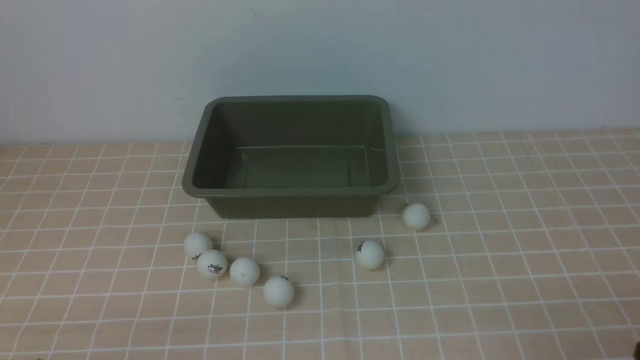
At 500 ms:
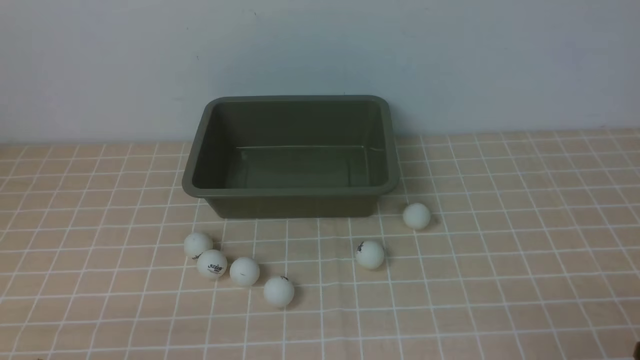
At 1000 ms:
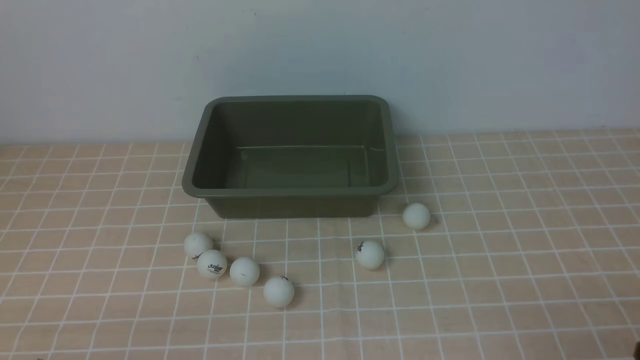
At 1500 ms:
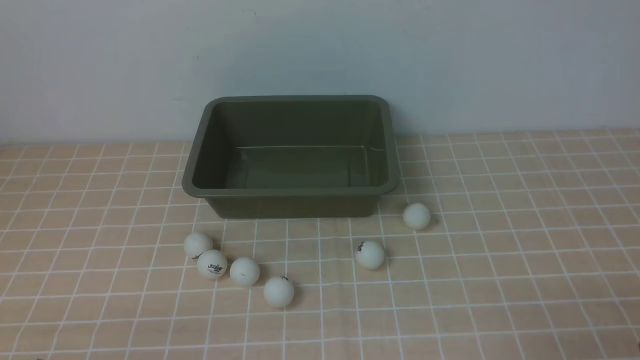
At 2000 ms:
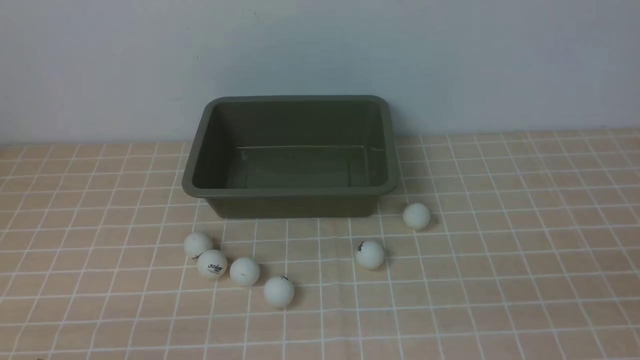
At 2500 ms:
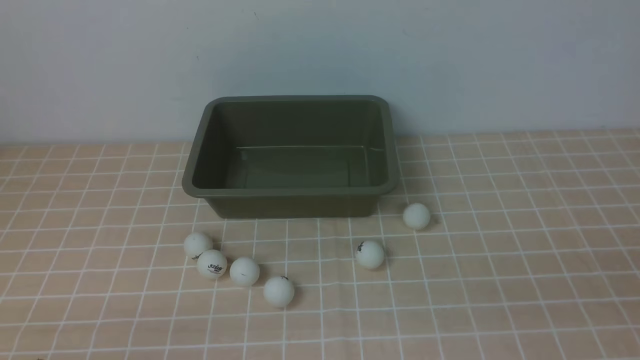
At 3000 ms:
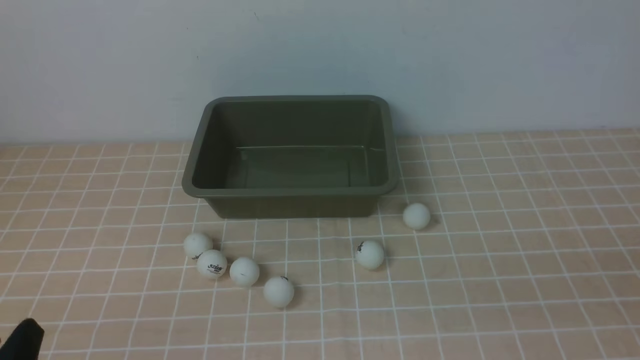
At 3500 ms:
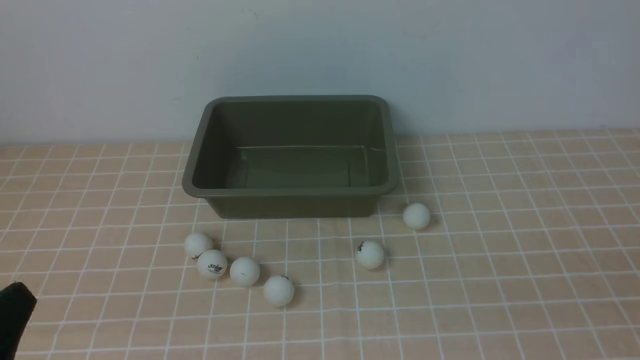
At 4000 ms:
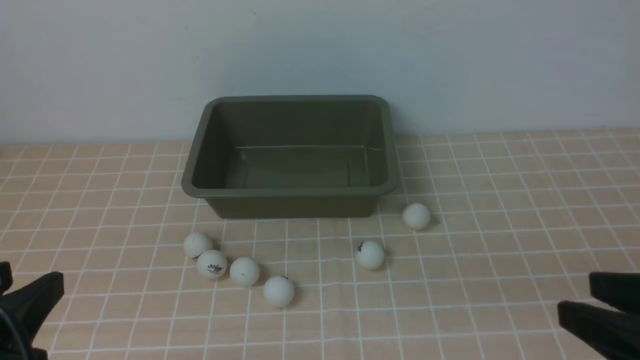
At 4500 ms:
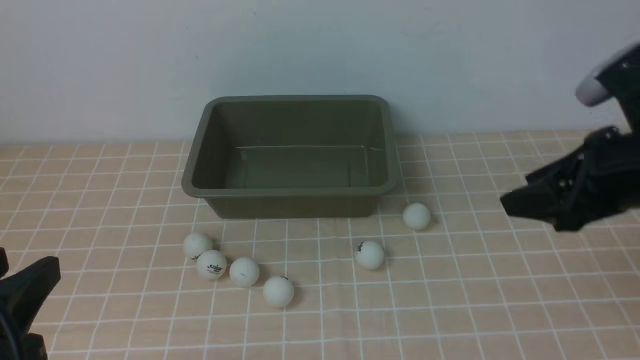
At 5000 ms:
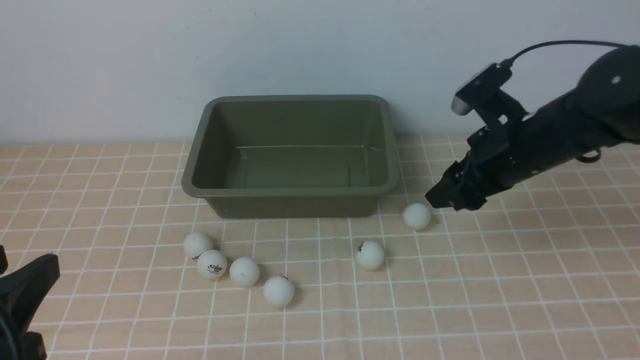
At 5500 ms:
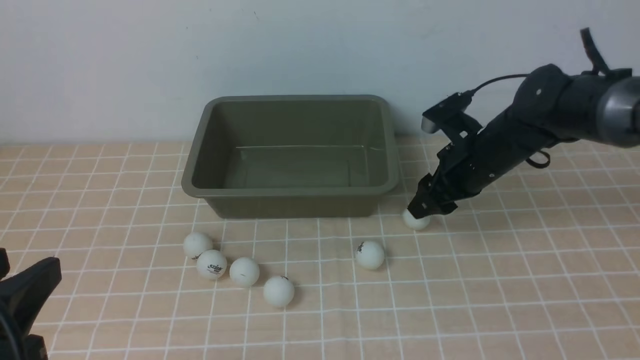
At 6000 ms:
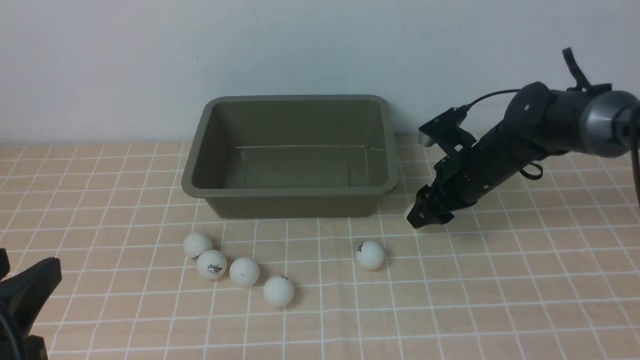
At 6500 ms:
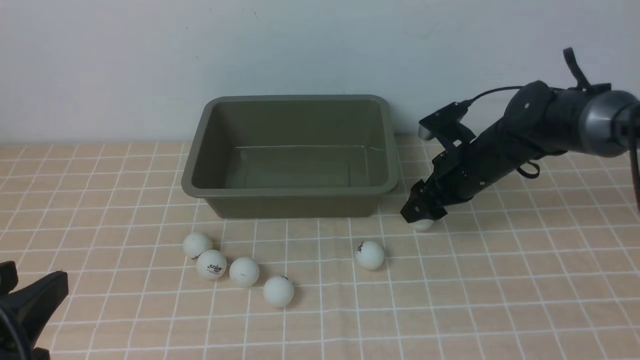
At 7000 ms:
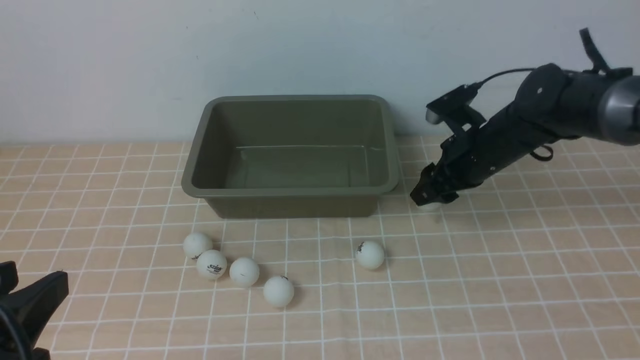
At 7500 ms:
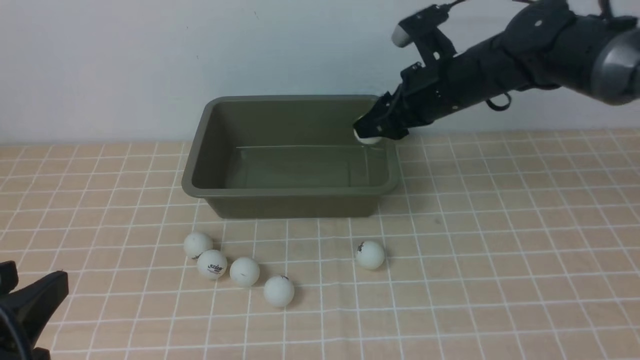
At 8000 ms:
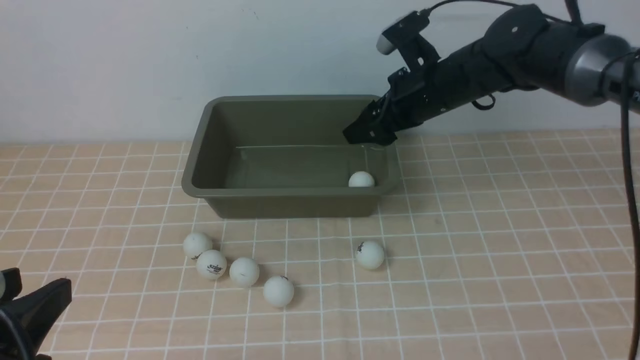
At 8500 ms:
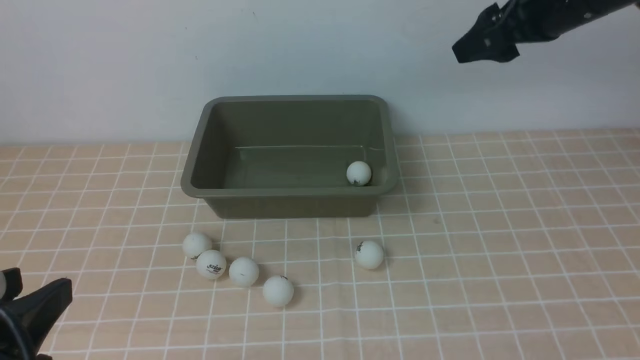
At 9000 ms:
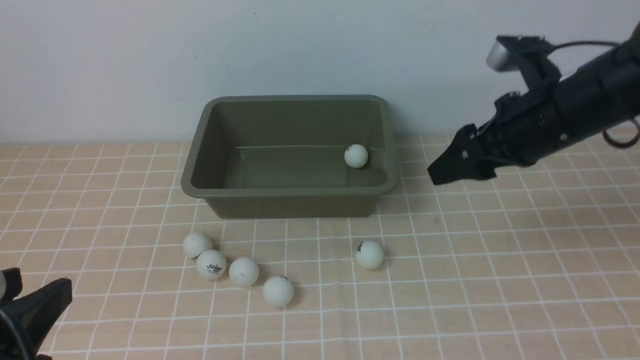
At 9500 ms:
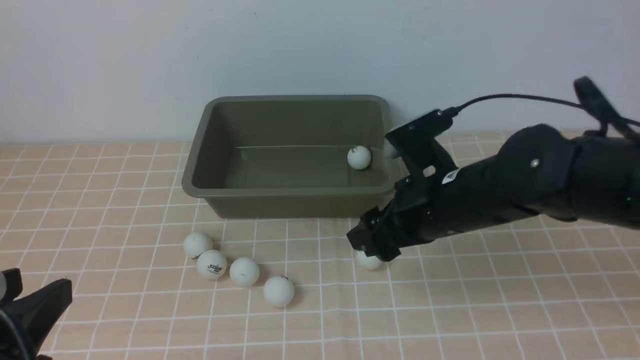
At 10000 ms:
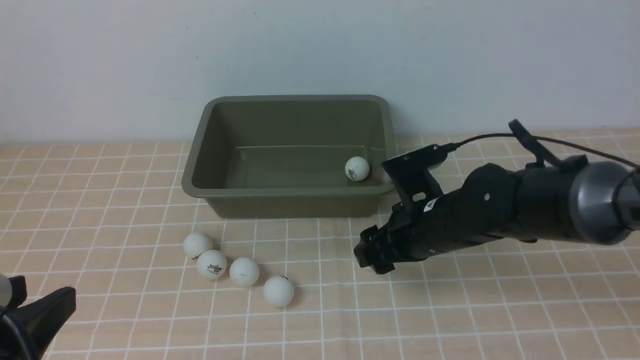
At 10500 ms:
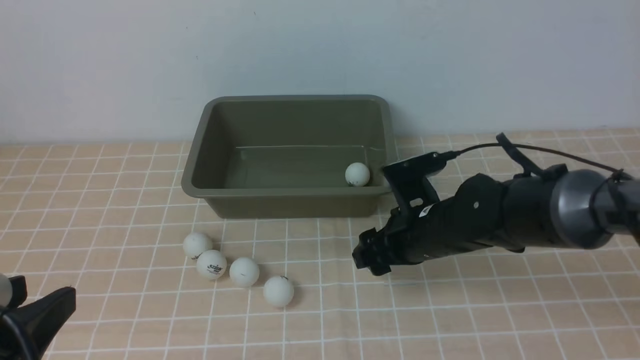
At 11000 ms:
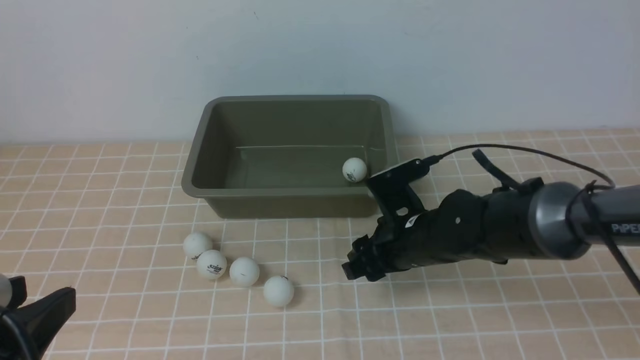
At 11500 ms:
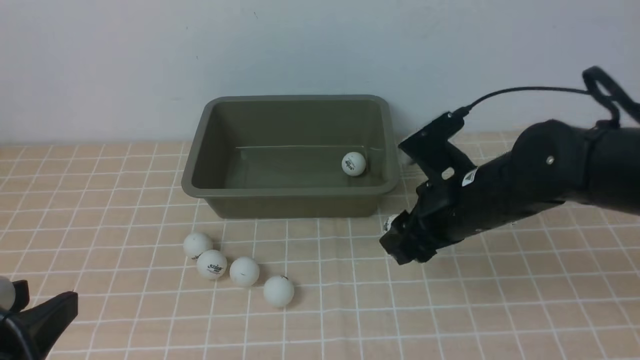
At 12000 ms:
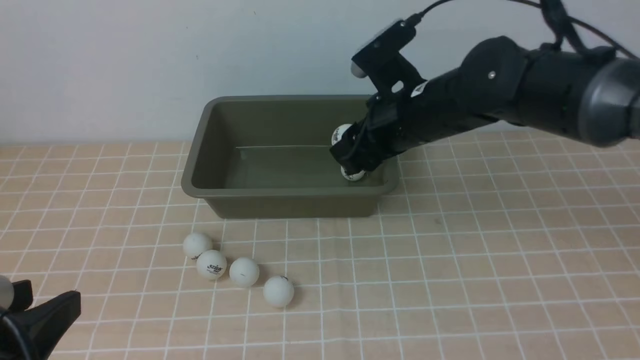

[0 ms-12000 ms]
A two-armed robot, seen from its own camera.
Step, 0 ms to 7000 ms: use the right arm to clamp the table tennis ball closest to it.
Step, 7500 ms to 8000 ms: use the right arm to put the table tennis ball into the box.
Step, 8500 ms to 11000 ms: use the right arm to clamp the table tennis ball closest to it.
2000 ms to 4000 ms: The left gripper goes roughly 10 cm upward; the right gripper goes some 10 cm forward.
4000 ms to 6000 ms: The right gripper moves forward and downward, approximately 35 cm.
6000 ms to 8000 ms: The right gripper shifts roughly 10 cm upward, and opens up.
8000 ms to 10000 ms: The right gripper is displaced backward and downward by about 15 cm.
10000 ms to 12000 ms: The right gripper heads upward and forward, covering roughly 10 cm, and closes up.

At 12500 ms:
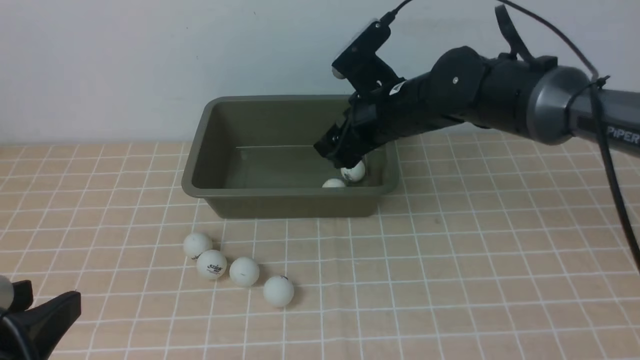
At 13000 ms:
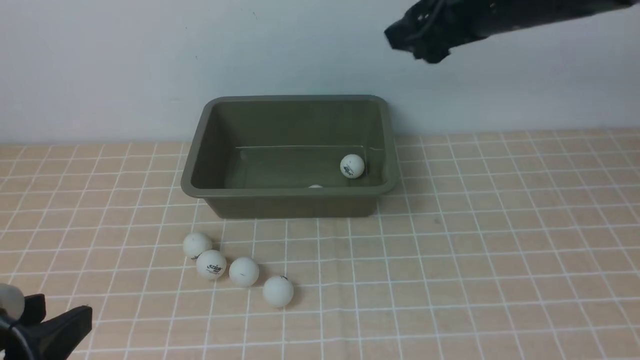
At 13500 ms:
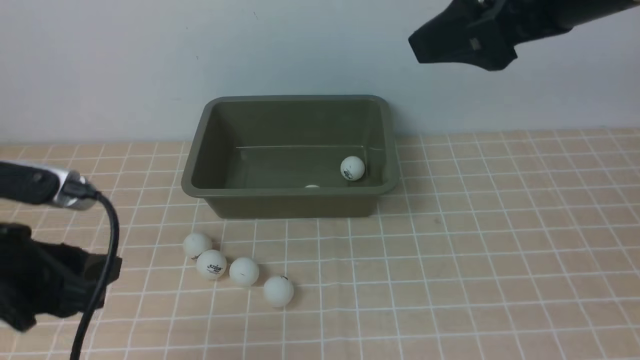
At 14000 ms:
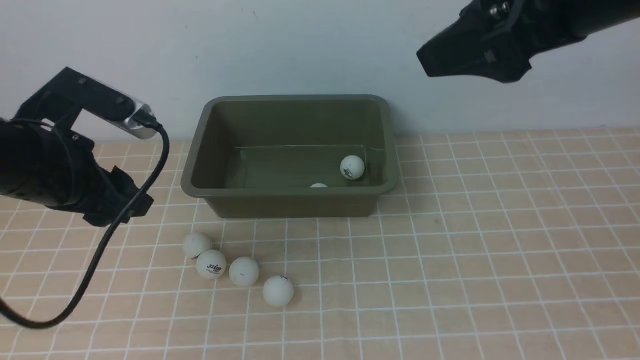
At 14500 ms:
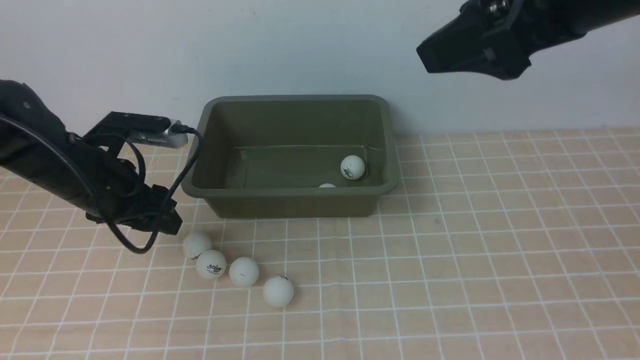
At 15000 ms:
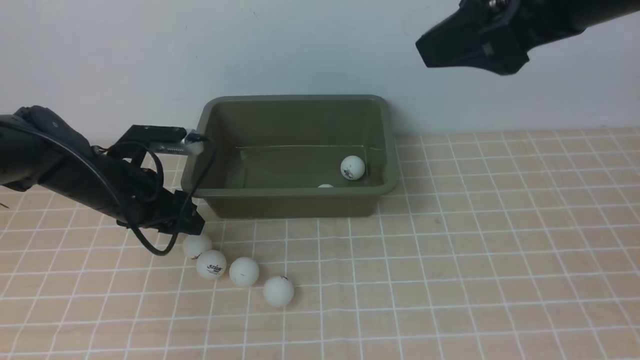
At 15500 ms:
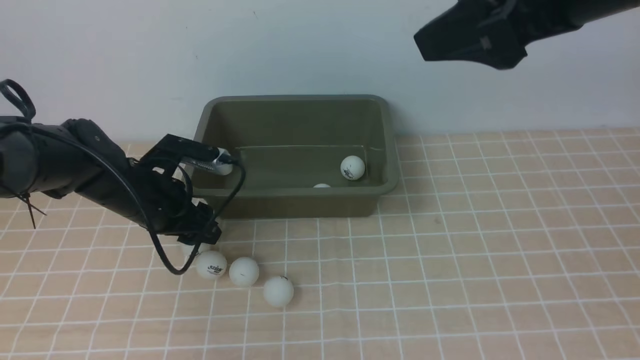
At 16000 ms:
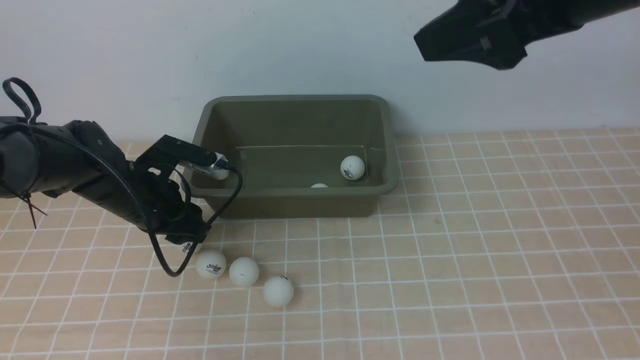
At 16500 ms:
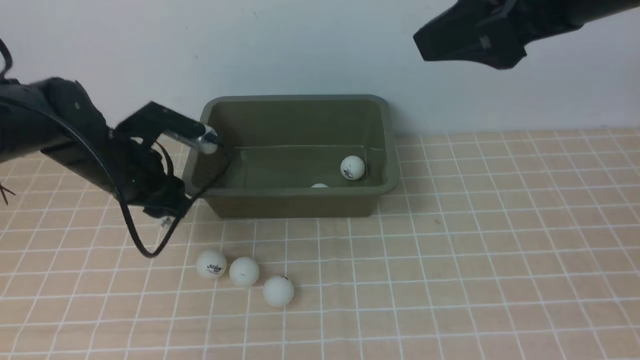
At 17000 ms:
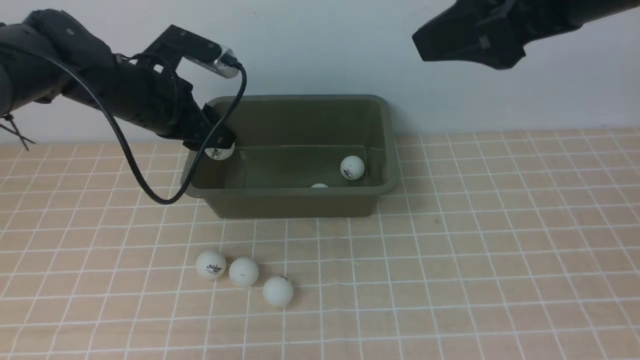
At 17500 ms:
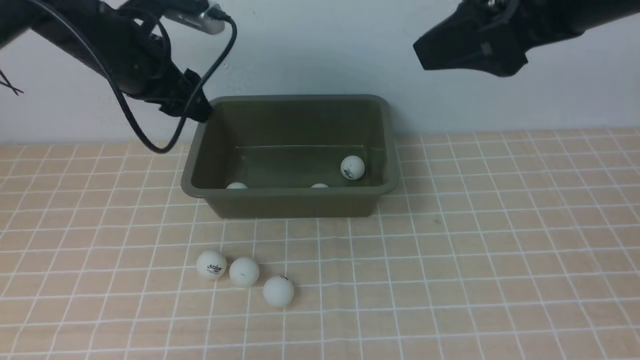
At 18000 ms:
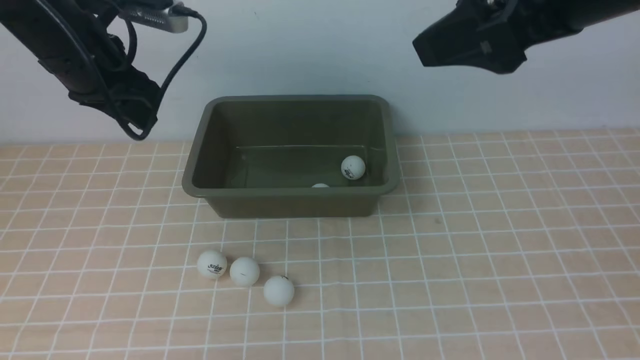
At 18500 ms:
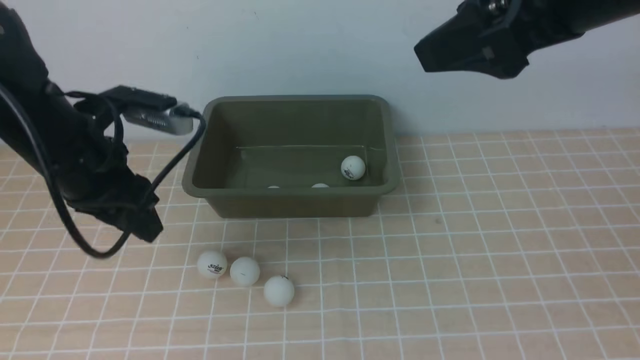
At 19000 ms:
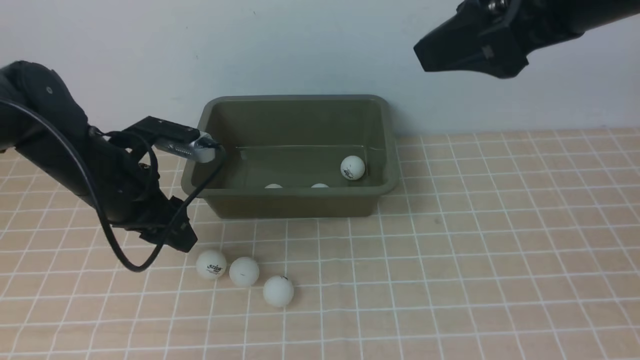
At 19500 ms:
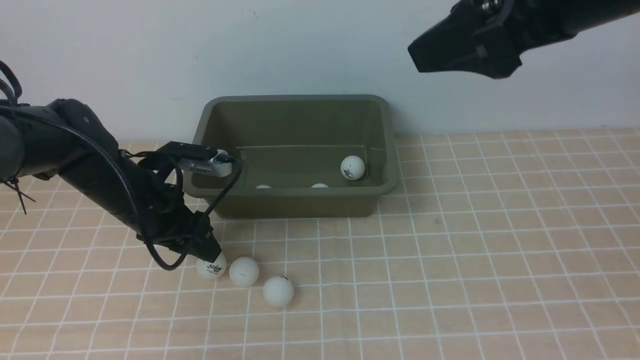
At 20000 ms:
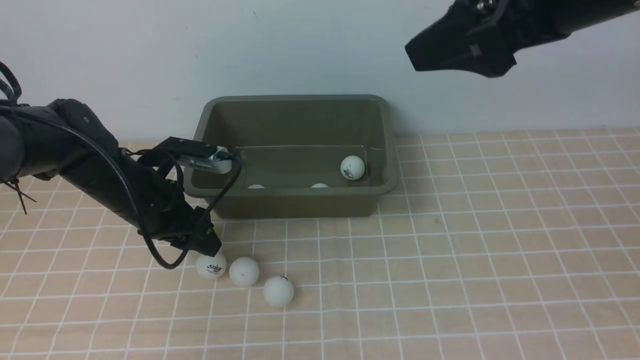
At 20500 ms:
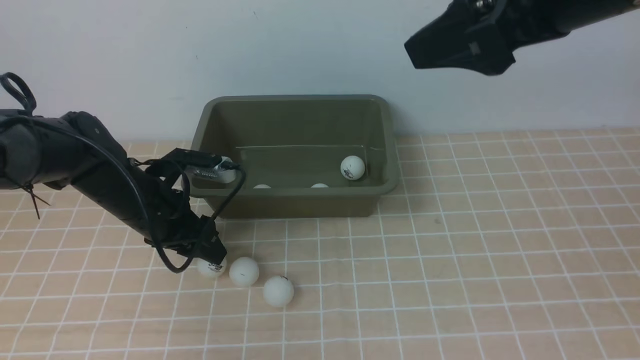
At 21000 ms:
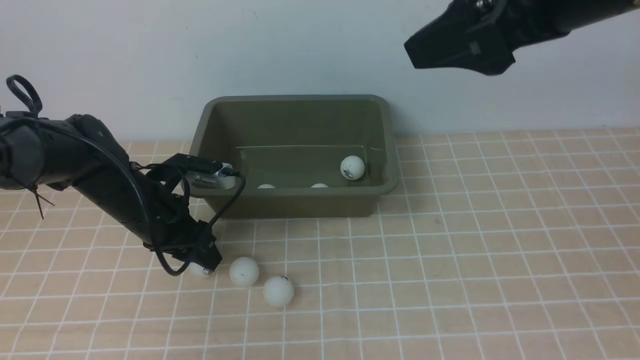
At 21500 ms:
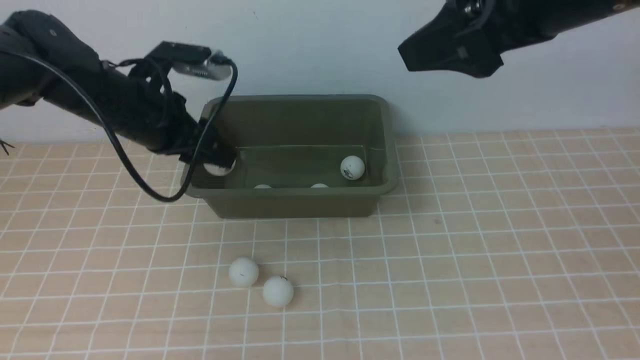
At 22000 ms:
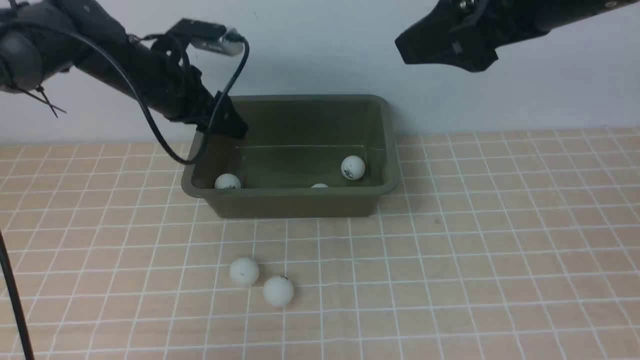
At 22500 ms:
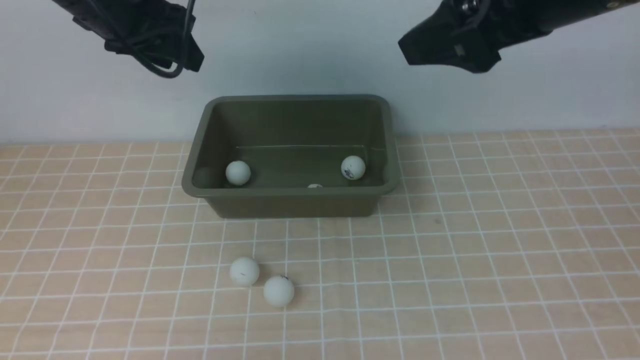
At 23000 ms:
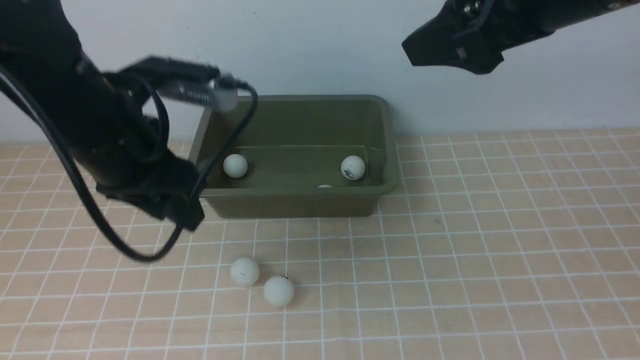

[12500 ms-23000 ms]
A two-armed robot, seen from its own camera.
Step, 13000 ms to 16000 ms: use the left arm to clamp the table tennis ball closest to it.
Step, 16500 ms to 17500 ms: use the left arm to put the table tennis ball into the box.
Step, 18000 ms to 21500 ms: use the left arm to clamp the table tennis ball closest to it.
12500 ms to 14500 ms: The right gripper shifts approximately 25 cm upward, backward and to the right. Meanwhile the left gripper moves forward, some 25 cm, and opens.
14500 ms to 16500 ms: The left gripper closes up.
16500 ms to 19000 ms: The left gripper reaches about 10 cm upward, then returns, and opens up.
19000 ms to 21000 ms: The left gripper moves downward, about 5 cm.
21000 ms to 23000 ms: The left gripper goes some 15 cm upward and backward, and opens, then closes again.
